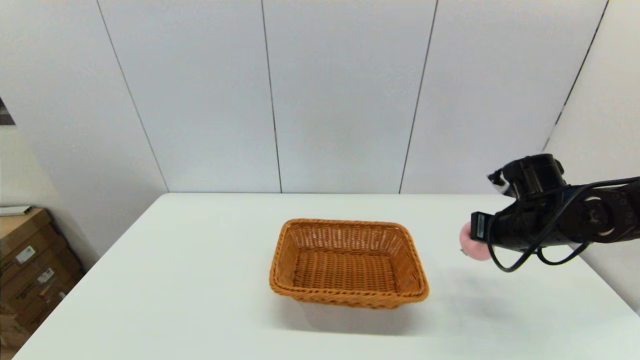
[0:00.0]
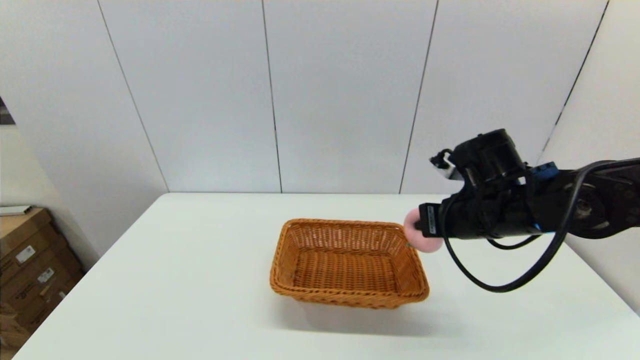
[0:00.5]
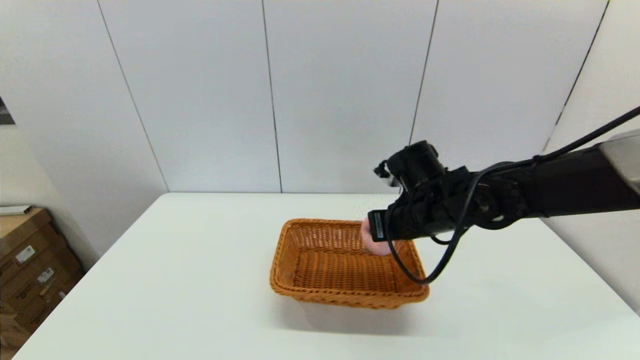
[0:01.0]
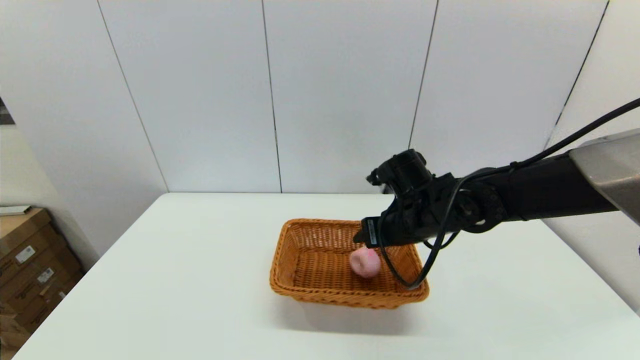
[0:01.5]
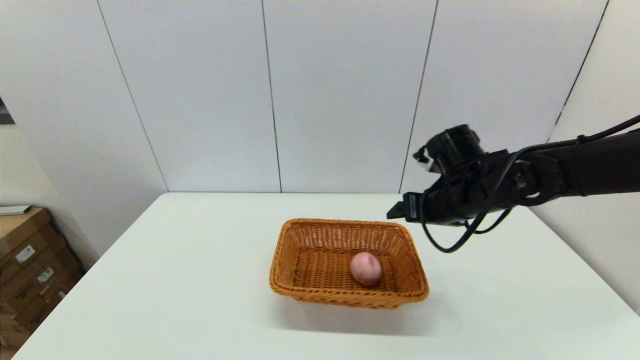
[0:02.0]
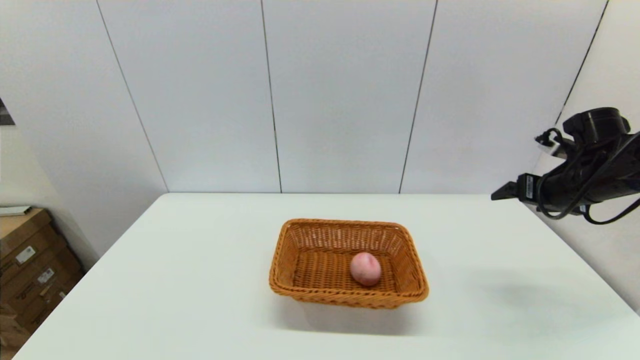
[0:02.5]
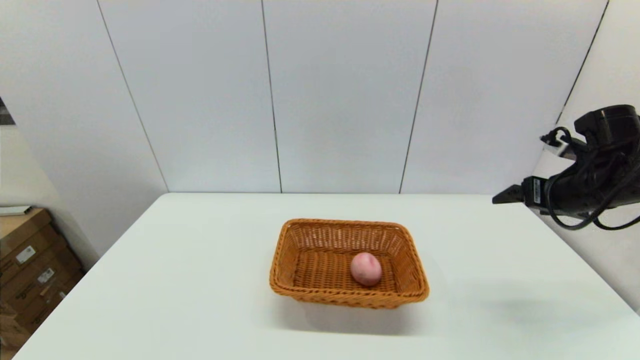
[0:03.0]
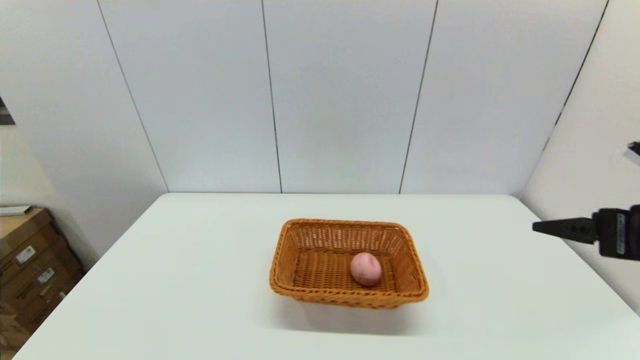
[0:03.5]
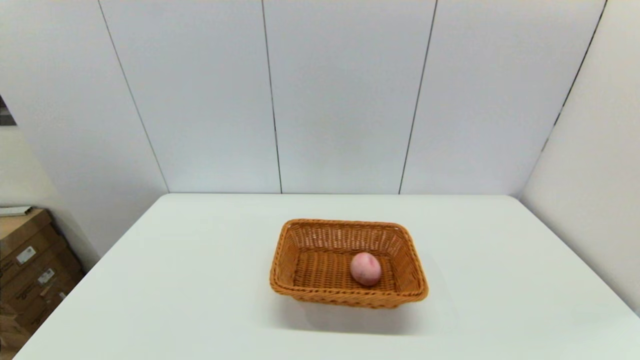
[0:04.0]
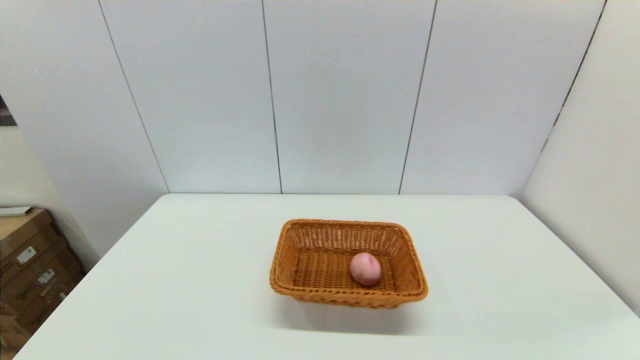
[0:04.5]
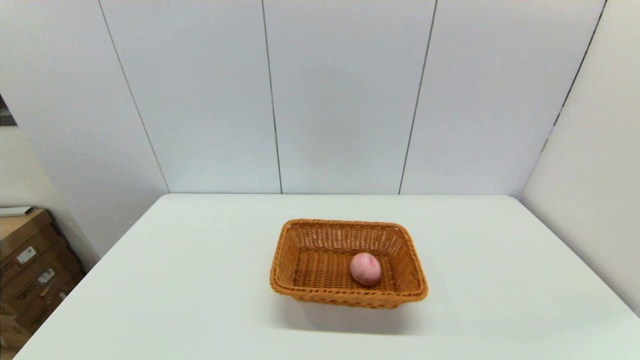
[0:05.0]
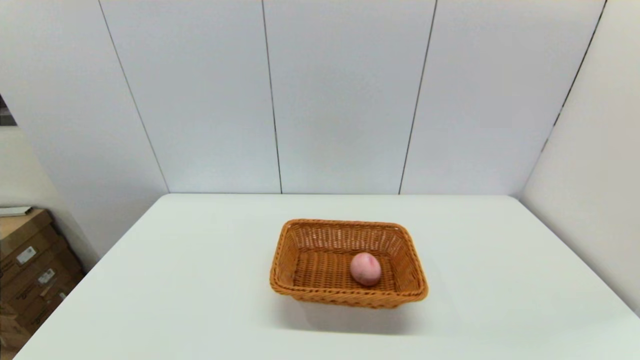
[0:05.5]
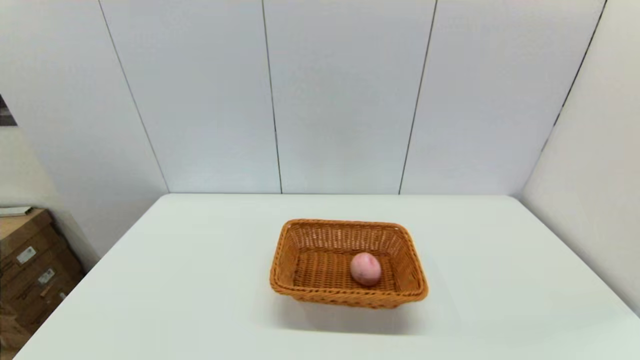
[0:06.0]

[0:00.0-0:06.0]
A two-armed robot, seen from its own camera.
Step, 0:00.0 to 0:01.5: Place the peach into the light basket with the right gripper.
0:00.0 to 0:02.0: The right gripper heads to the left, covering about 10 cm, and opens up.
0:02.0 to 0:04.0: The right gripper is displaced backward by about 35 cm.
